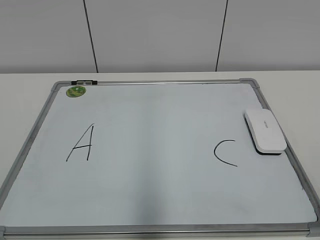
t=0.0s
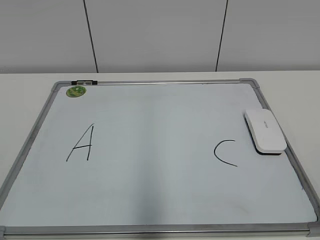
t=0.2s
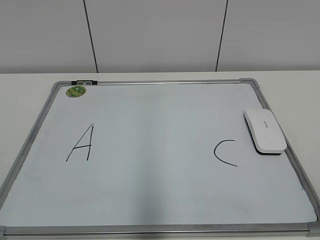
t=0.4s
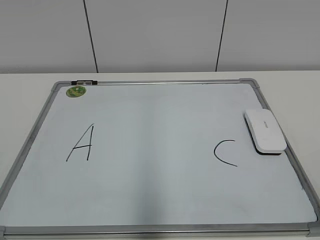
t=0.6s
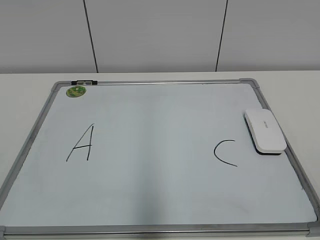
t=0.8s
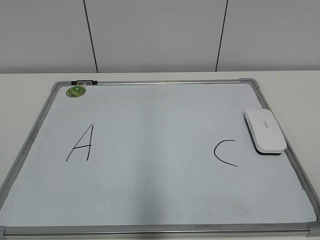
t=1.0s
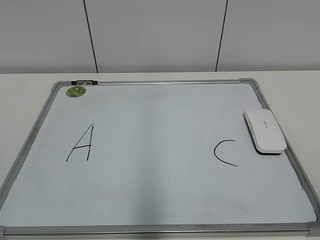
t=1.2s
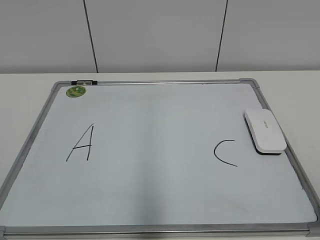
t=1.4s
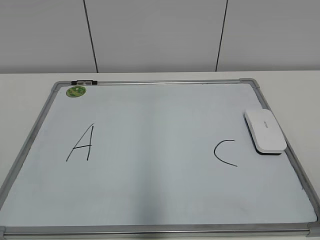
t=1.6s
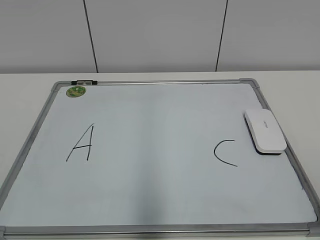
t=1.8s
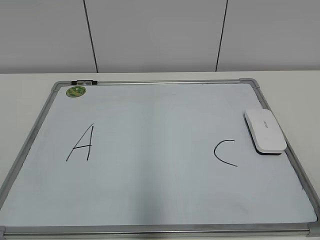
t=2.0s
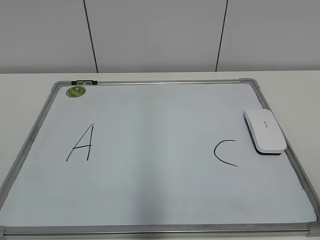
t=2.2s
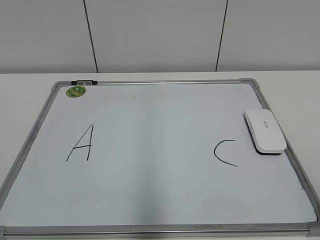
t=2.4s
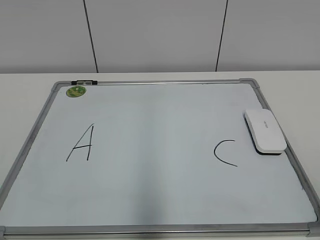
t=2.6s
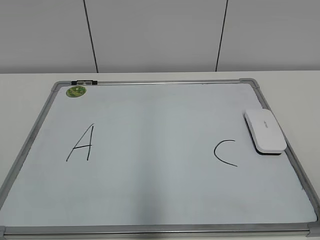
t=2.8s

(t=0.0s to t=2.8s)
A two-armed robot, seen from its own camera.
Task of the whole recording: pick up the eraser on the blackboard and erase the letter "B".
t=1.4s - t=2.8s: Neither gripper changes place.

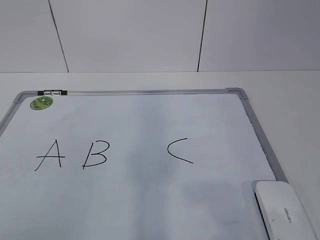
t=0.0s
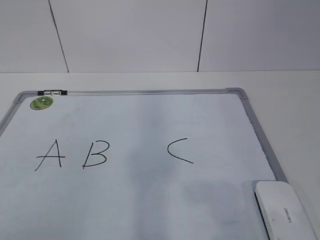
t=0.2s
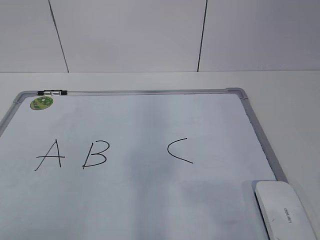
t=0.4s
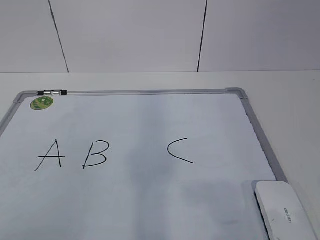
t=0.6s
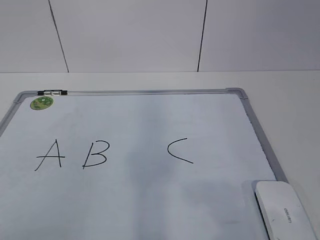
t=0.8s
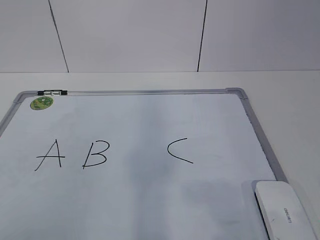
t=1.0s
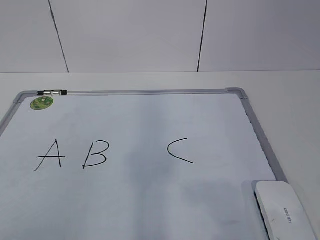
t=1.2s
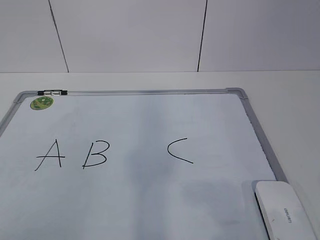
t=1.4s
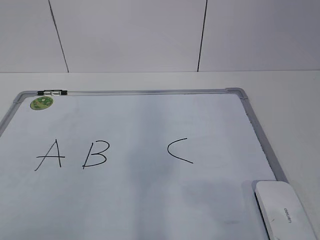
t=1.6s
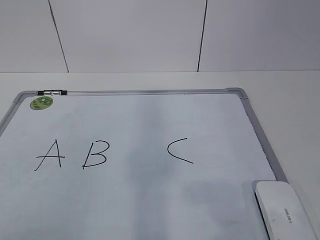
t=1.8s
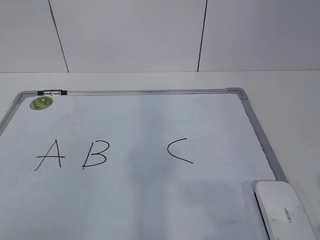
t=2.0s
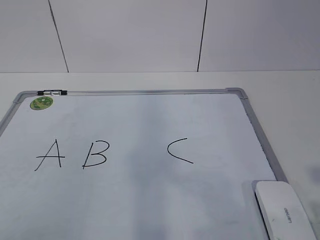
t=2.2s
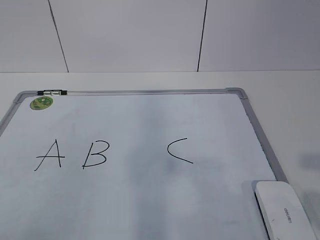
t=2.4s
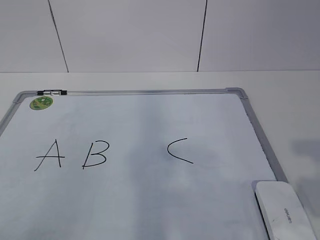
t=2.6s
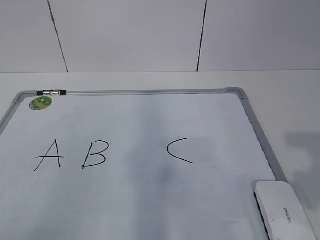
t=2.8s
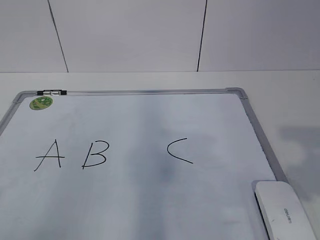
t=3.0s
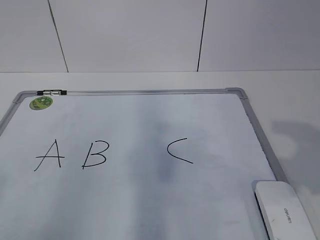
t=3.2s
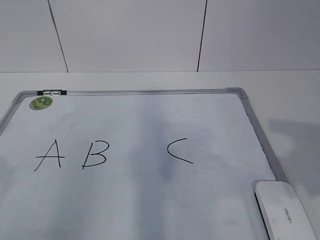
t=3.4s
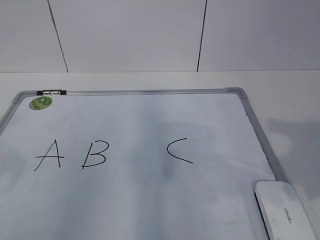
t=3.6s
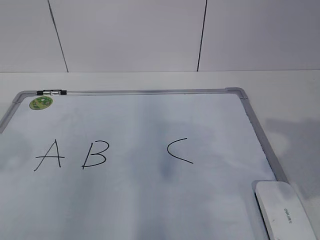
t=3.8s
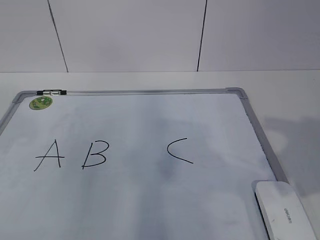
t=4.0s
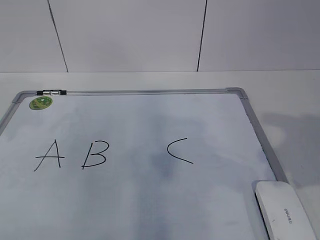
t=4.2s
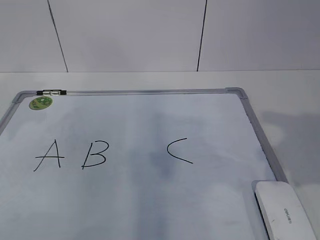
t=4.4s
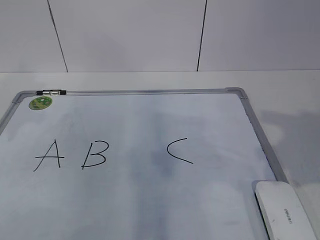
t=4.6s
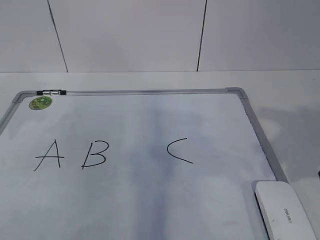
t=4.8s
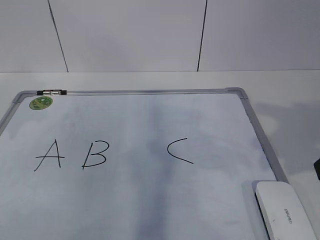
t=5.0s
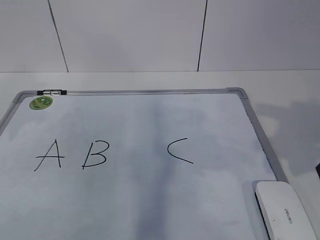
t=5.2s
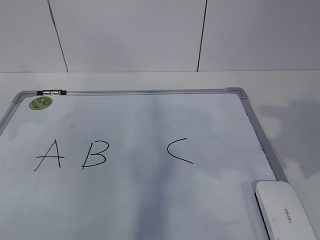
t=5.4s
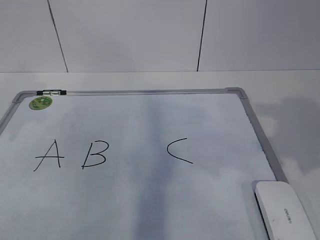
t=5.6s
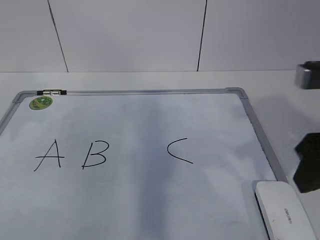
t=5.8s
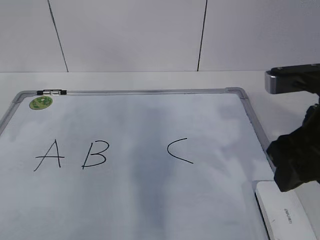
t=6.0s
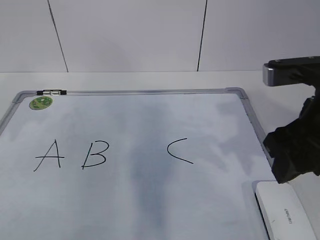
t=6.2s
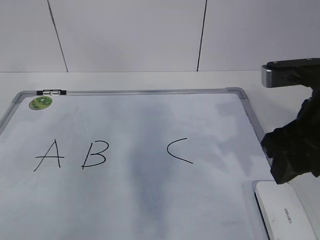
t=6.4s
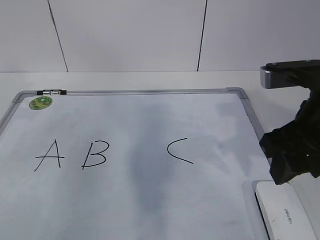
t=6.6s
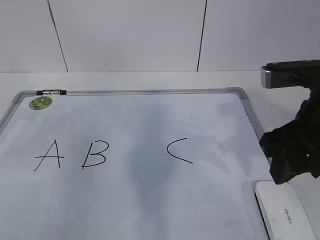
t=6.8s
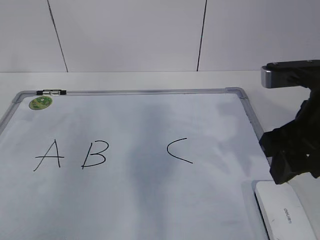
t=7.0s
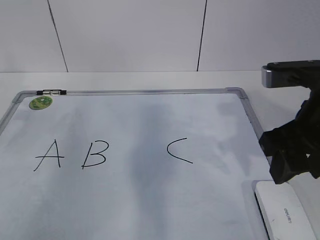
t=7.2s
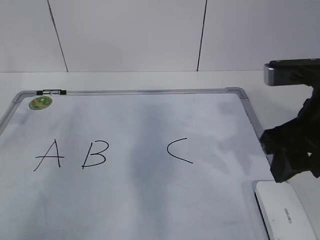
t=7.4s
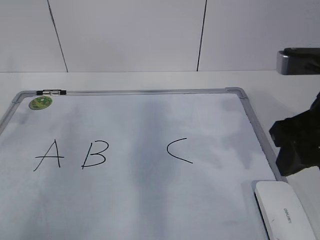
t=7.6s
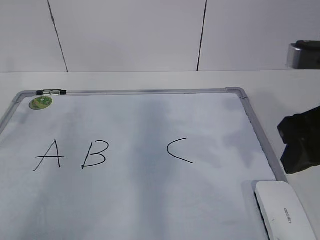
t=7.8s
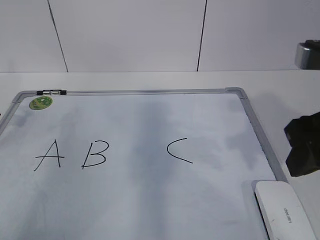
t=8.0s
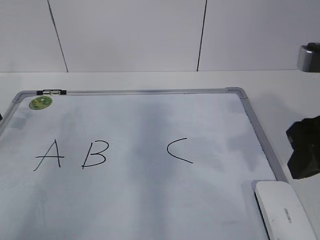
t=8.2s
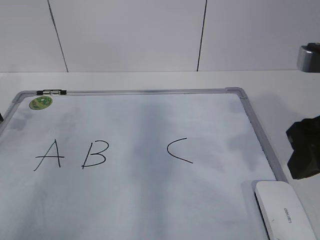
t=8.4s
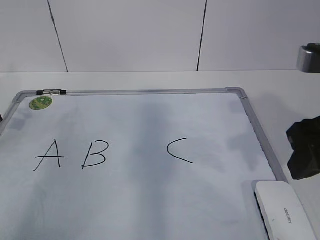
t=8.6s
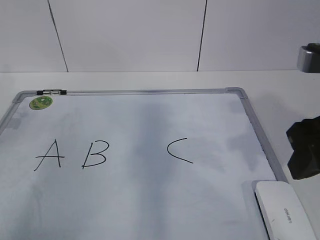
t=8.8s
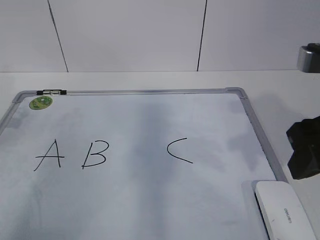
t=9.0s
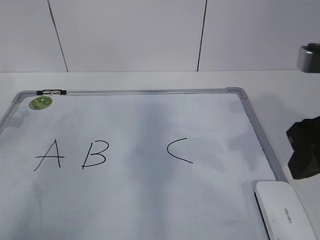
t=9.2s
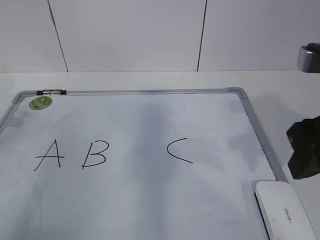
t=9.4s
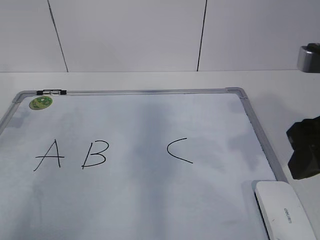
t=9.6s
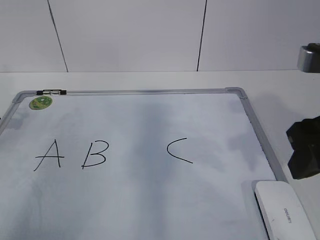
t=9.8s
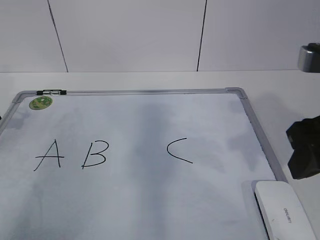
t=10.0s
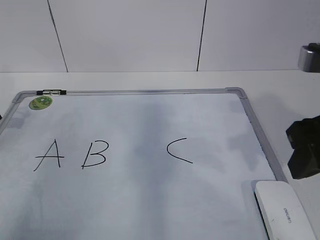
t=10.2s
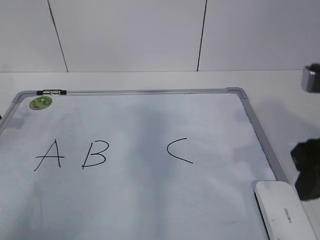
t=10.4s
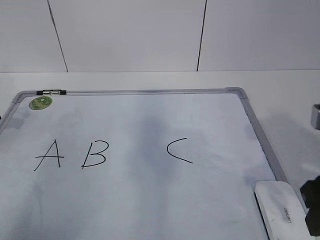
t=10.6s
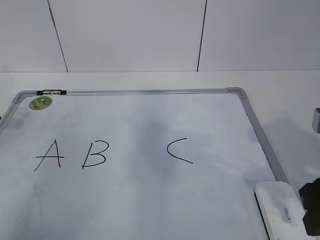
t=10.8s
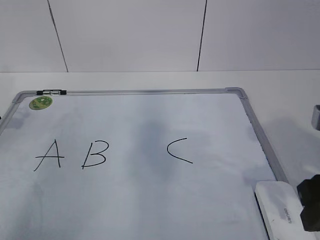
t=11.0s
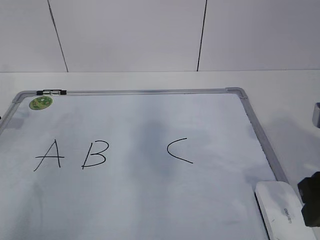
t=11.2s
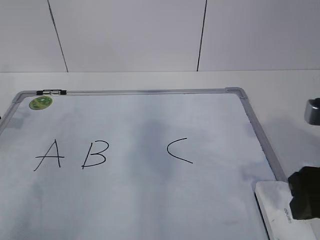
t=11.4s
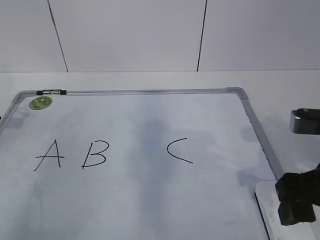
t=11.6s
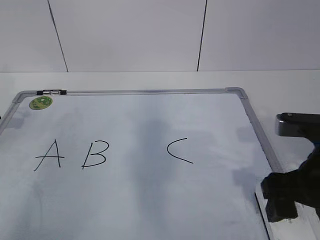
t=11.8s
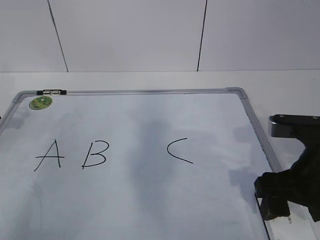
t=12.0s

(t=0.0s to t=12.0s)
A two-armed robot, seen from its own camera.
Task of the whole recording: pick up the eraser on the blackboard and erase the letter "B".
Step, t=0.0s - t=6.6s: Hold the drawing board steady with your left hand.
t=4.4s - t=6.0s: The right gripper is displaced forward and to the left by approximately 10 cm.
t=7.6s - t=9.0s: The grippers make only small movements.
t=10.4s - t=12.0s: The right gripper shifts about 10 cm downward, and opens its fingers.

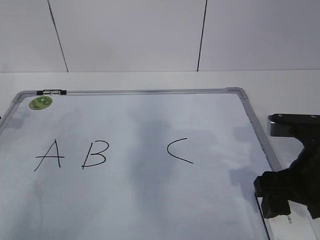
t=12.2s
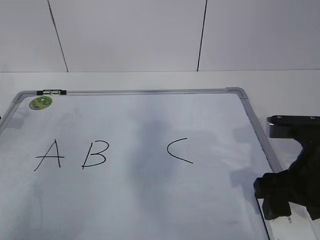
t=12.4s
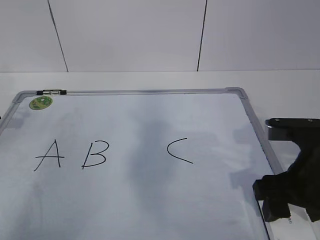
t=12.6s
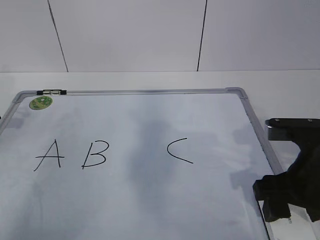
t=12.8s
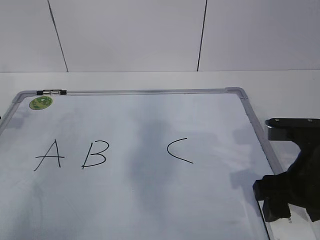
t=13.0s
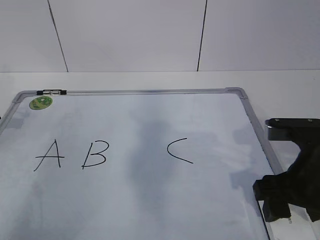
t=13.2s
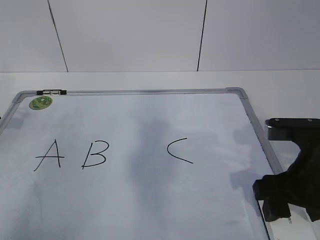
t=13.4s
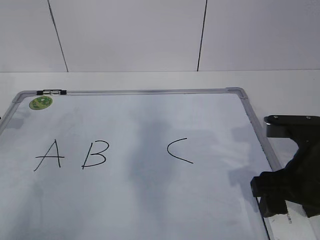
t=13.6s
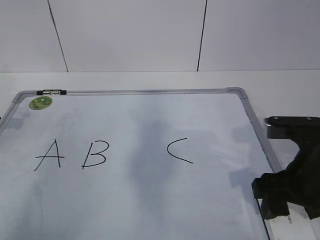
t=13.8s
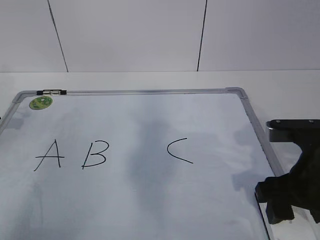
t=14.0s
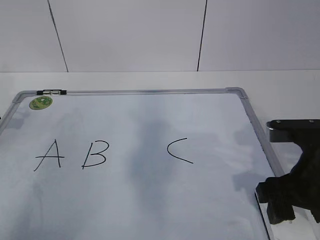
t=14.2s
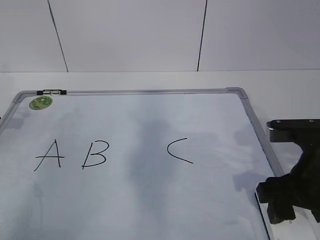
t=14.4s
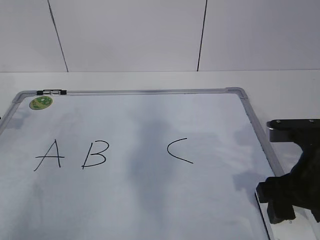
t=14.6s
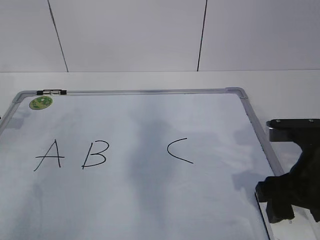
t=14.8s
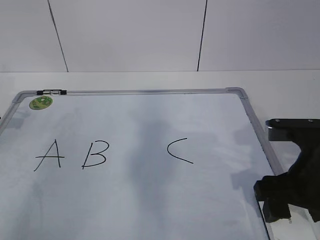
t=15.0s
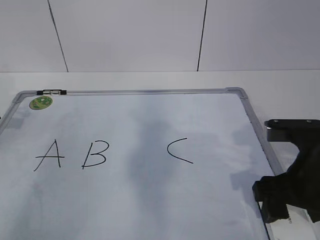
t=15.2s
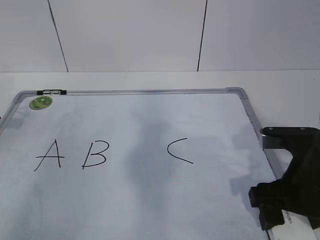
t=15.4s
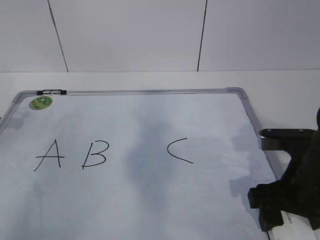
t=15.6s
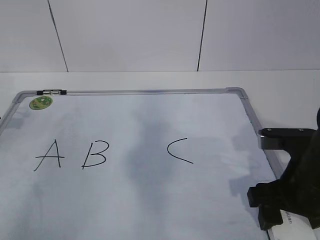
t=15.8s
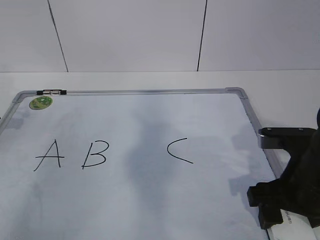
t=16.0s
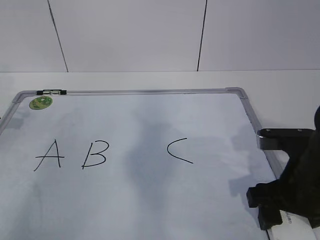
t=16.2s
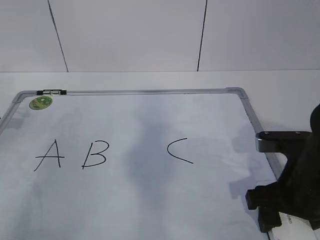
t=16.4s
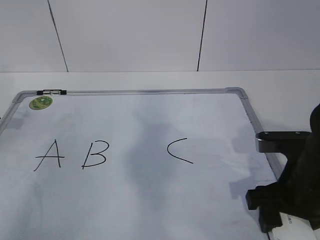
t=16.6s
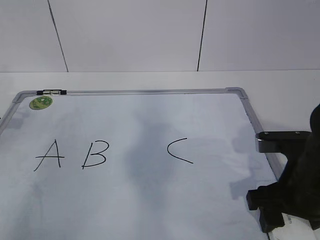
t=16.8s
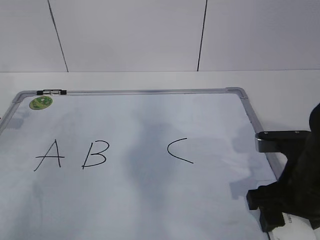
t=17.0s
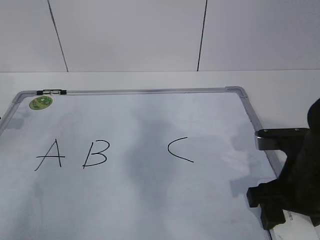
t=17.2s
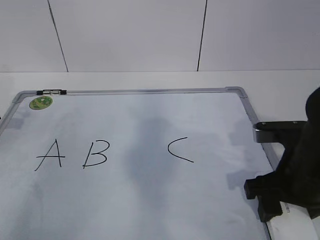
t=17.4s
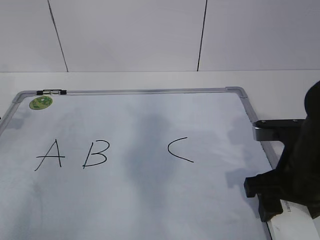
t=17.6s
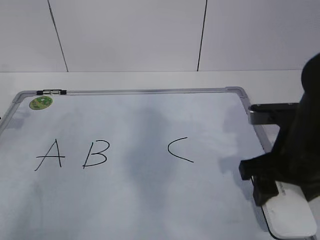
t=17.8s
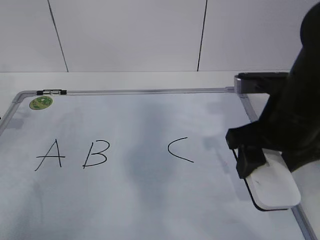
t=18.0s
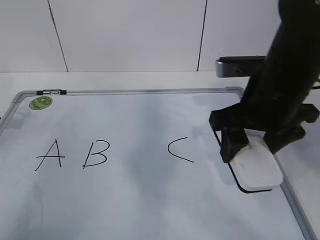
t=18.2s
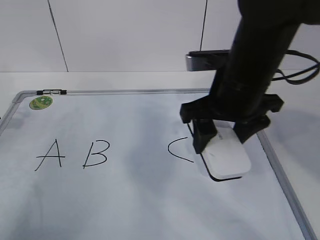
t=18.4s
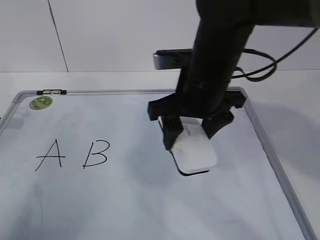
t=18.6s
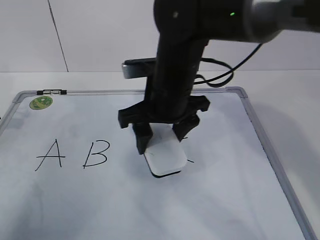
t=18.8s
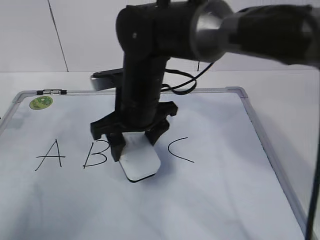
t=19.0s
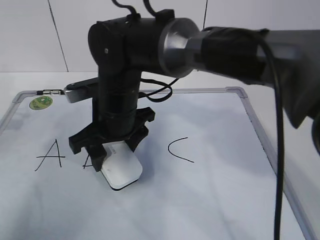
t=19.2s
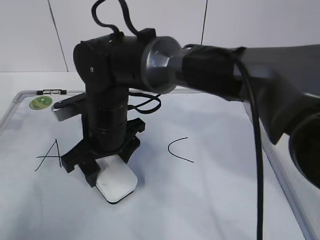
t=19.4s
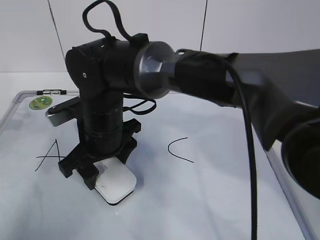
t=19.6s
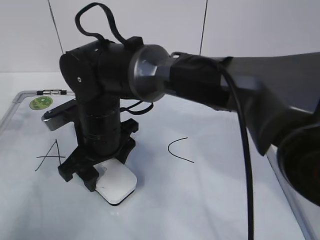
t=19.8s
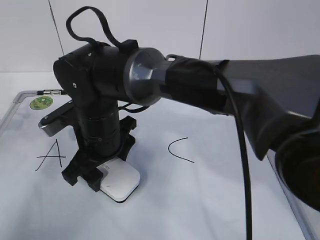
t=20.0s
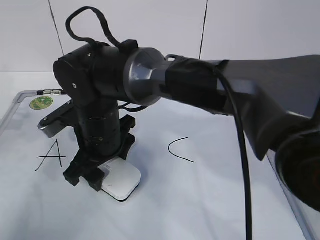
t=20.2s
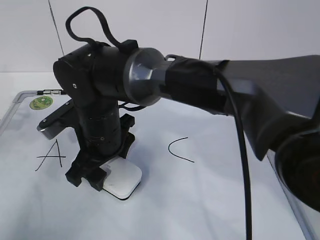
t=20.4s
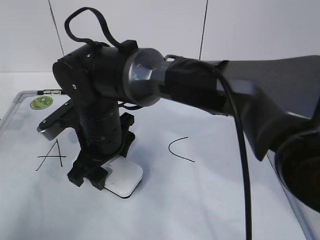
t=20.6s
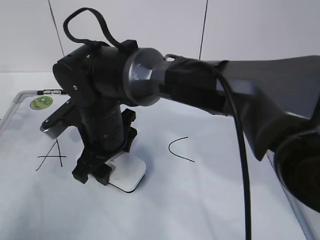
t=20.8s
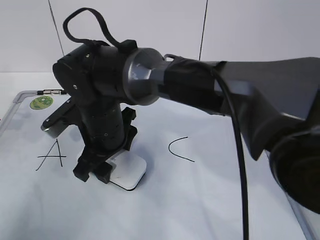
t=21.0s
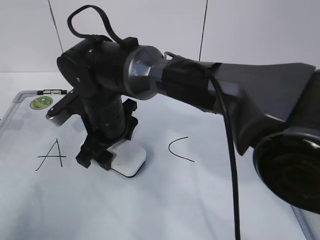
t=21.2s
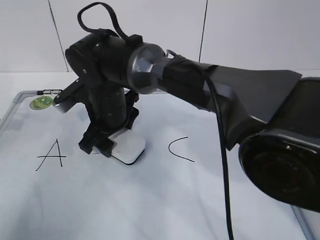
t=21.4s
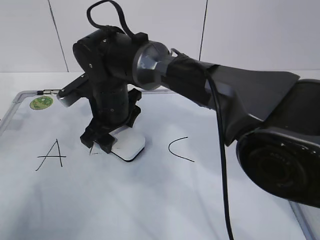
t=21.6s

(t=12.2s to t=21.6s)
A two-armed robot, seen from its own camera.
Task of the whole recording: pick up the eraser on the blackboard and erase the letter "B".
t=12.2s - t=13.8s: Both grippers stay put.
t=13.8s - t=15.4s: The two grippers keep their place.
t=15.4s - t=17.0s: The two grippers keep their place.
t=17.0s - t=18.4s: The right gripper heads upward, forward and to the left, covering some 15 cm.
t=18.4s - t=20.0s: The right gripper moves to the left and downward, some 20 cm.
t=20.0s - t=21.6s: The right gripper goes approximately 5 cm forward.
